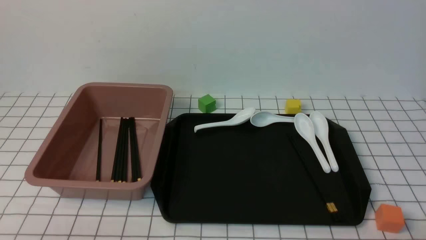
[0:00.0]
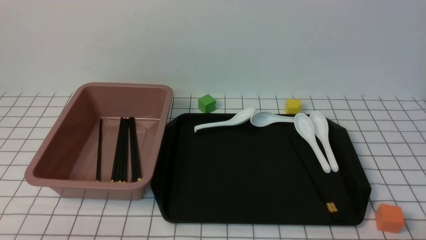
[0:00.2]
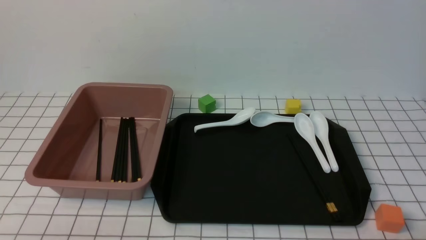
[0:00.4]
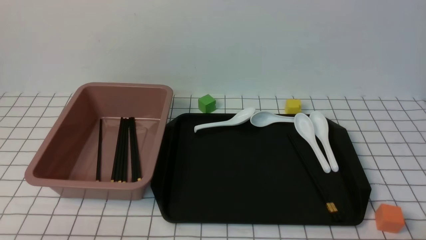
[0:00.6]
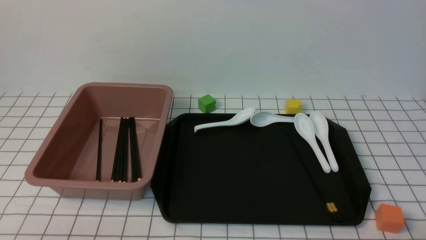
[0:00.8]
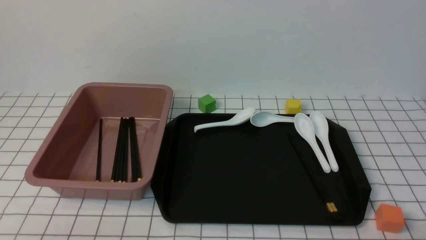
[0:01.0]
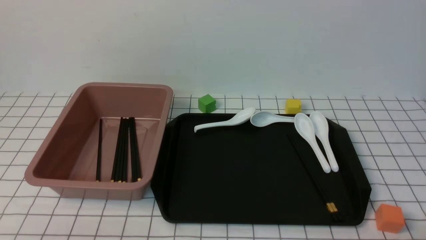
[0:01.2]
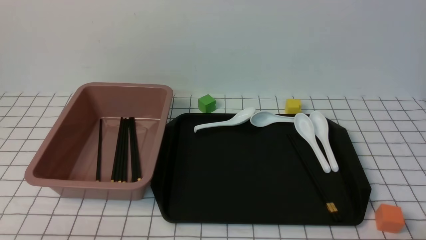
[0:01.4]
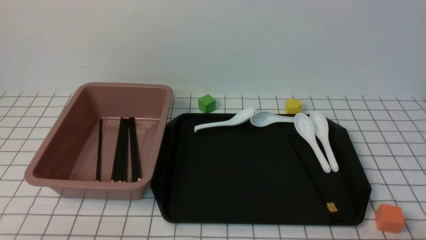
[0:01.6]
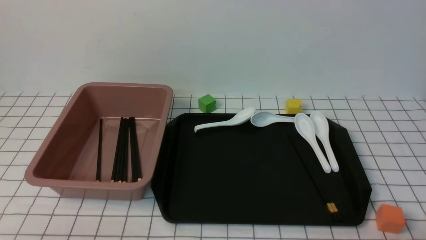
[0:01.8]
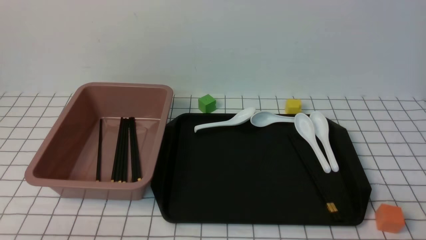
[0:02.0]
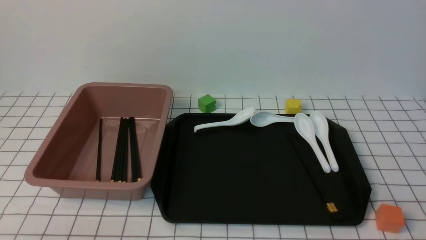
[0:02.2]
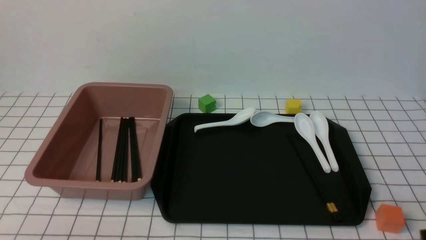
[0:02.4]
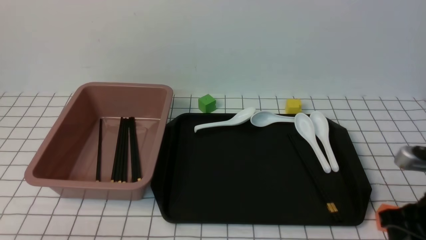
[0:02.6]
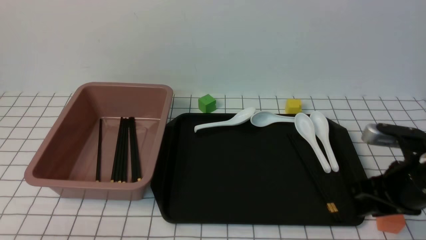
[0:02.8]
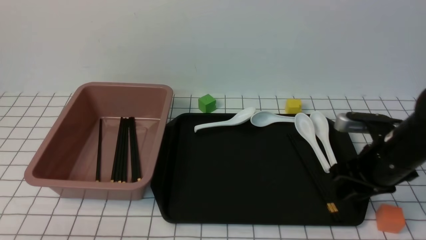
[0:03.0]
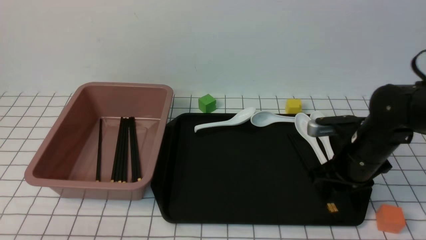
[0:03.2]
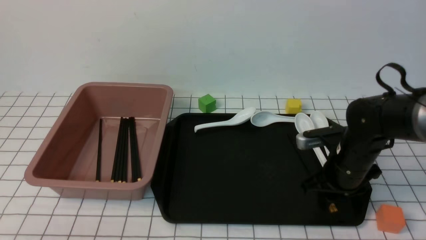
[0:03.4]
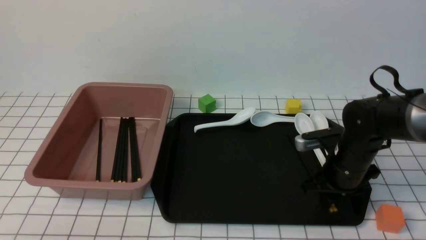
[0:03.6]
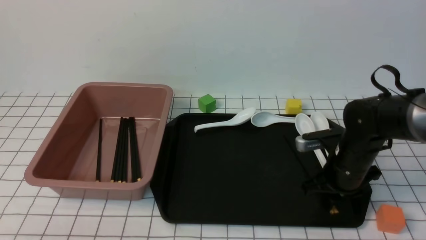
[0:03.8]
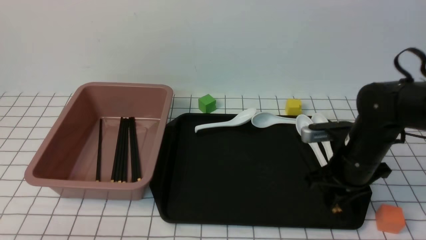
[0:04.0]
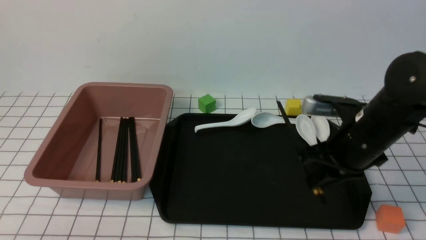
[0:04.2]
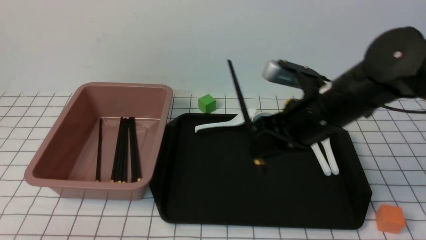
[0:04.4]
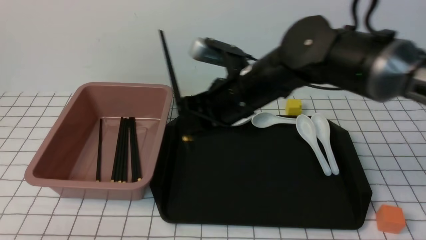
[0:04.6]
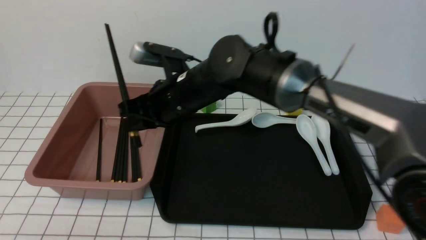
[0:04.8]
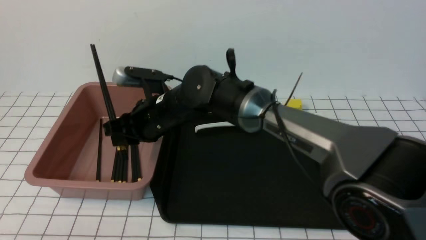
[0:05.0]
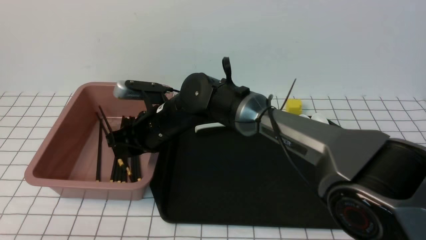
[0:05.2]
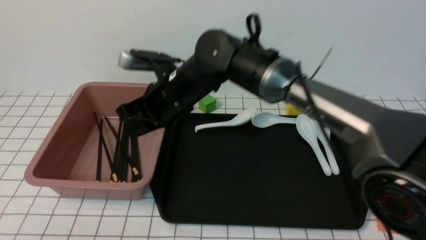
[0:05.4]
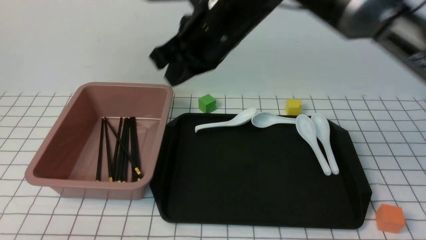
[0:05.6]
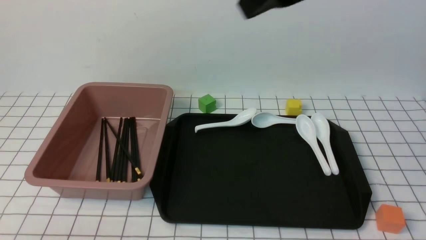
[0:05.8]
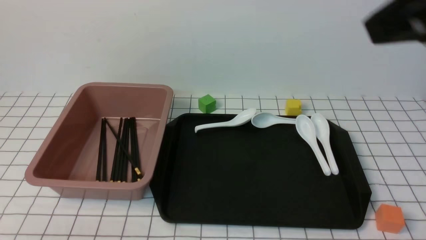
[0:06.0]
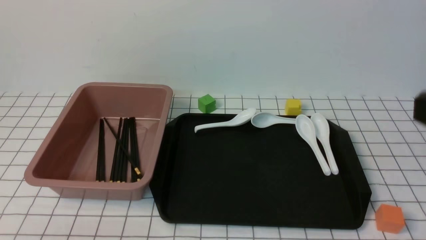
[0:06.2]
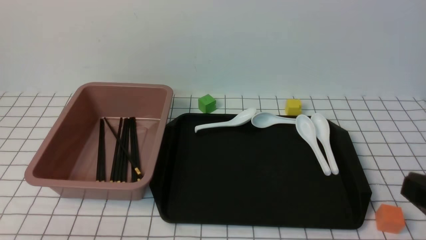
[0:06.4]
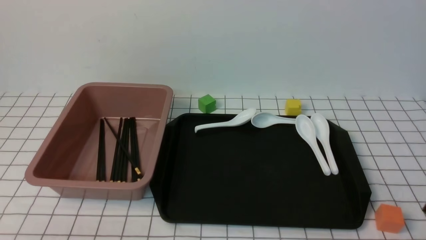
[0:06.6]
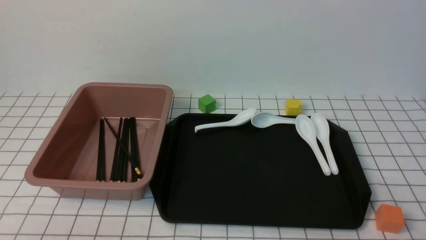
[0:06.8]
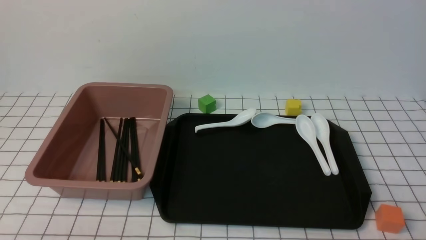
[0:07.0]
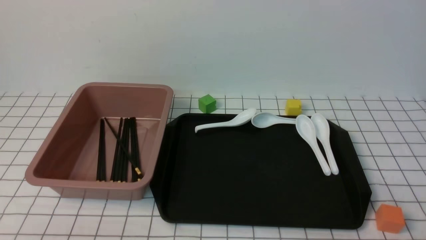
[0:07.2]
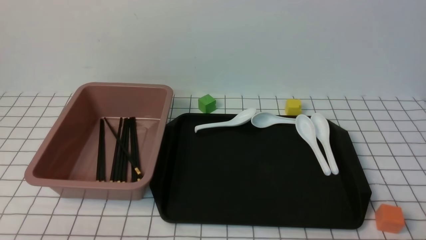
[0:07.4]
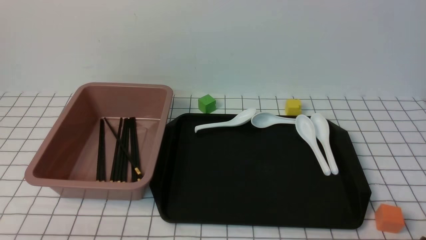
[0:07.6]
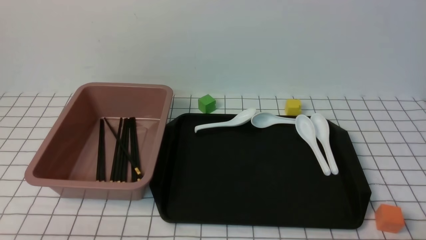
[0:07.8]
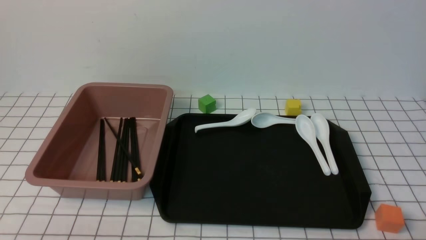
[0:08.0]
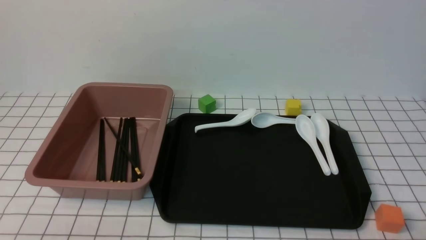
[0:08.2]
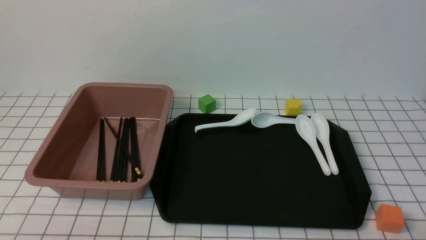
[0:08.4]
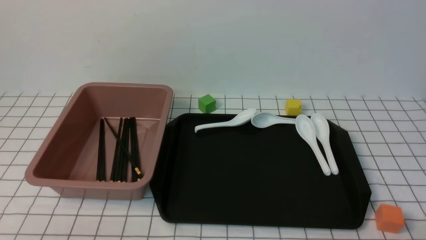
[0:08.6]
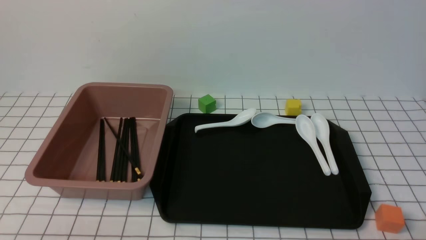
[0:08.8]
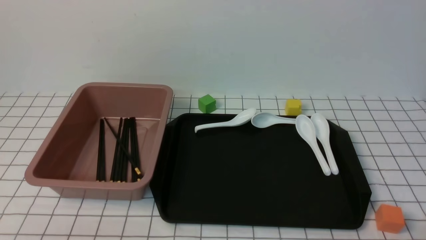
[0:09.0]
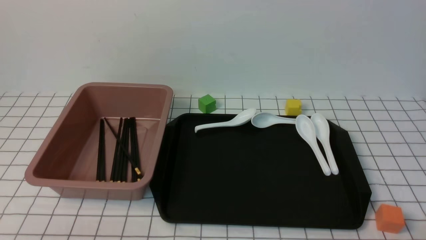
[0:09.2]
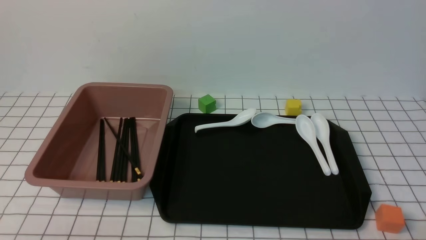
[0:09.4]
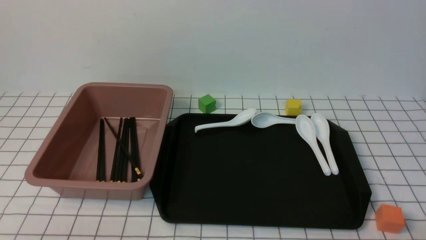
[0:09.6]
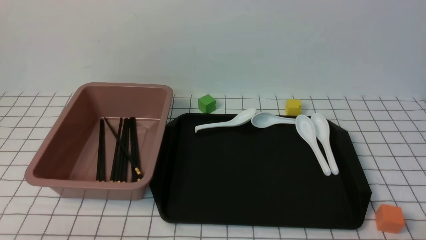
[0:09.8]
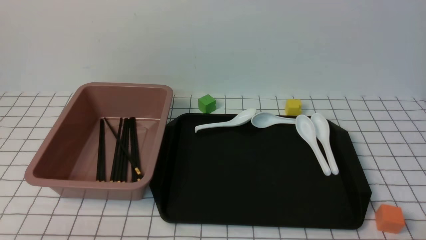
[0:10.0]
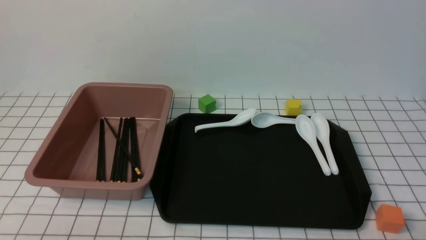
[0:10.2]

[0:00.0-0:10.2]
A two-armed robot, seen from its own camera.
Step, 0:00.0 to 0:04.0: use the right arm to grab a pair of chopsticks.
Step, 0:04.2 to 0:05.4: use the right arm to put the chopsticks into the lunch box.
0:01.4 to 0:03.0: The right gripper moves forward, roughly 25 cm, and closes, then reopens.
0:03.0 to 0:04.4: The right gripper is displaced to the left and upward by roughly 15 cm, and closes its fingers.
0:04.4 to 0:05.8: The right gripper shifts about 20 cm upward and backward, and closes up.
0:05.8 to 0:07.2: The right gripper shifts roughly 35 cm downward, backward and to the right.
0:08.8 to 0:10.2: Both grippers stay put.
